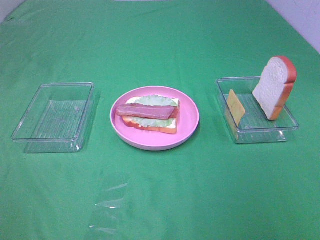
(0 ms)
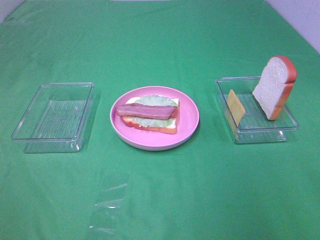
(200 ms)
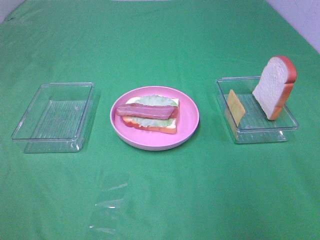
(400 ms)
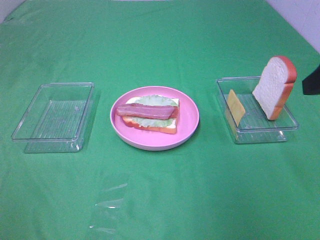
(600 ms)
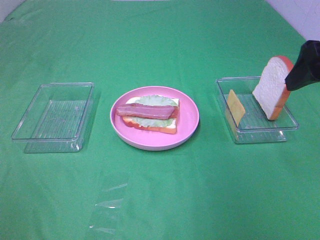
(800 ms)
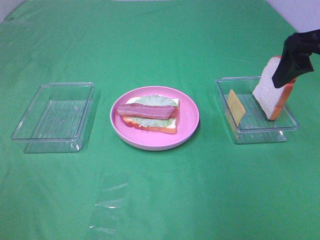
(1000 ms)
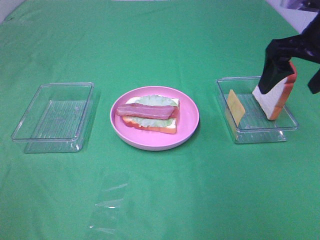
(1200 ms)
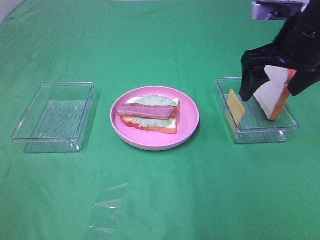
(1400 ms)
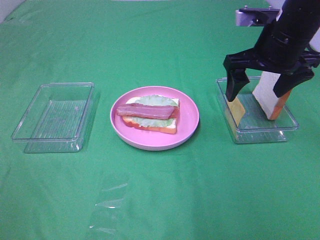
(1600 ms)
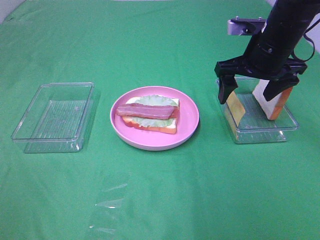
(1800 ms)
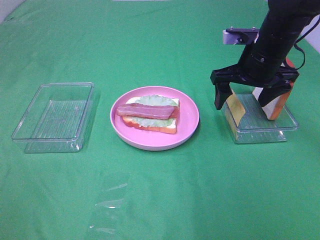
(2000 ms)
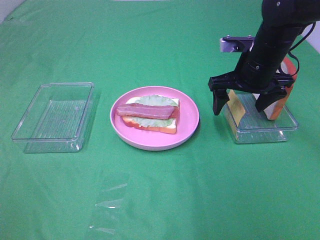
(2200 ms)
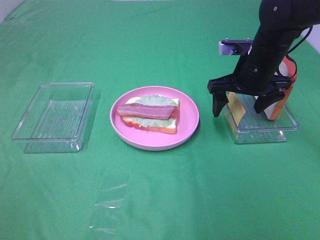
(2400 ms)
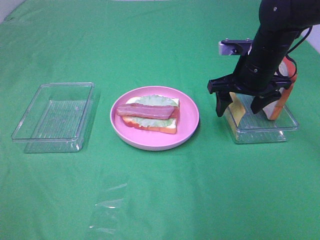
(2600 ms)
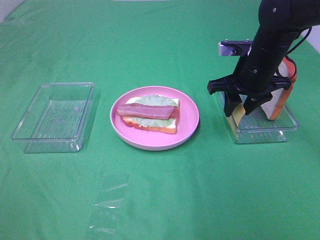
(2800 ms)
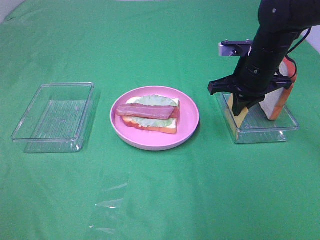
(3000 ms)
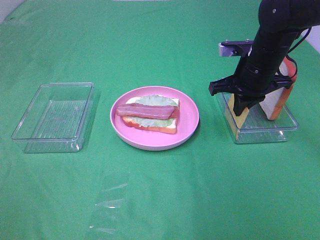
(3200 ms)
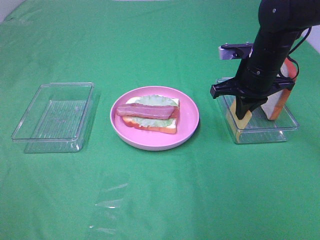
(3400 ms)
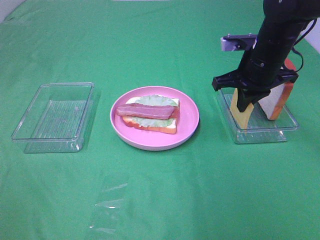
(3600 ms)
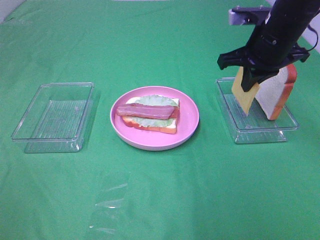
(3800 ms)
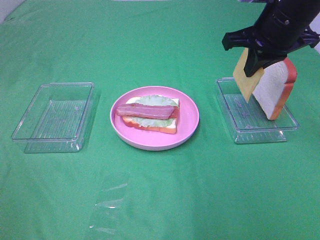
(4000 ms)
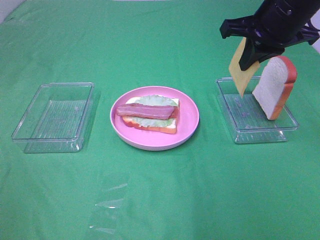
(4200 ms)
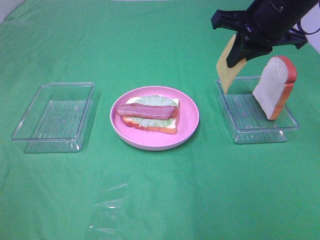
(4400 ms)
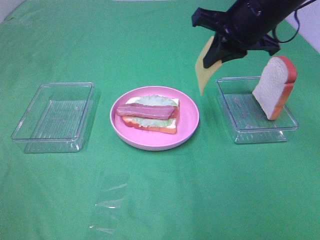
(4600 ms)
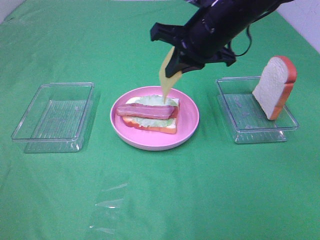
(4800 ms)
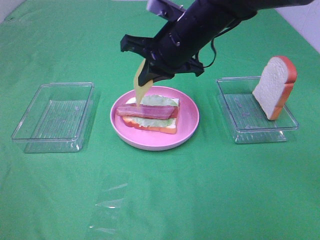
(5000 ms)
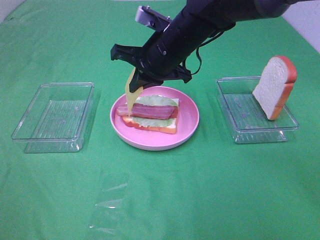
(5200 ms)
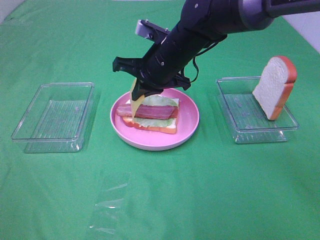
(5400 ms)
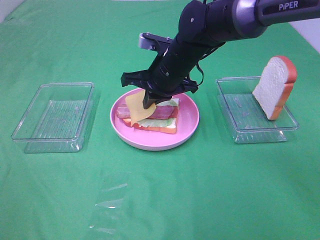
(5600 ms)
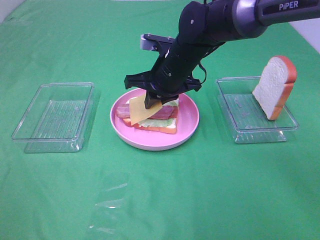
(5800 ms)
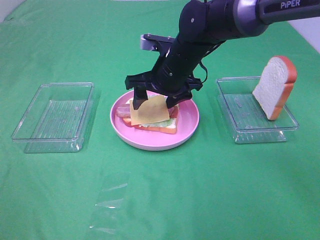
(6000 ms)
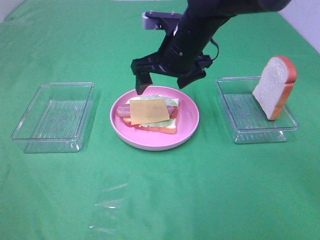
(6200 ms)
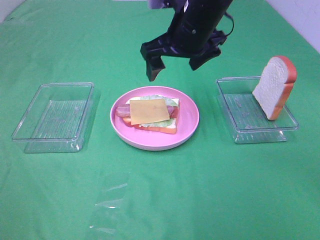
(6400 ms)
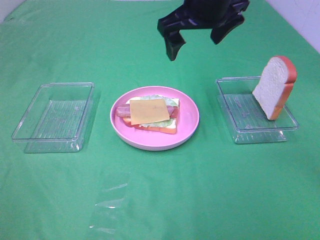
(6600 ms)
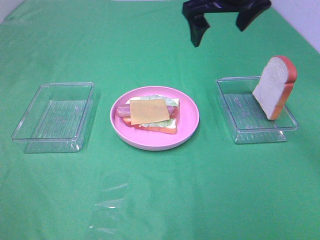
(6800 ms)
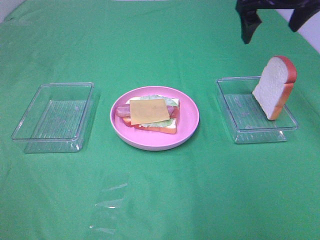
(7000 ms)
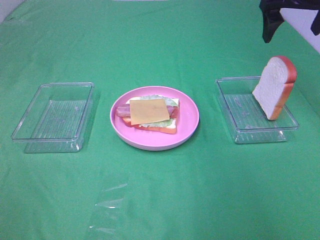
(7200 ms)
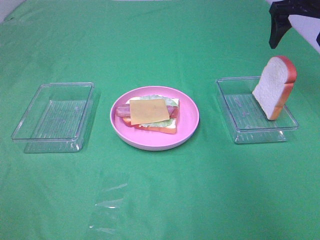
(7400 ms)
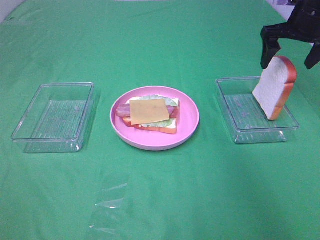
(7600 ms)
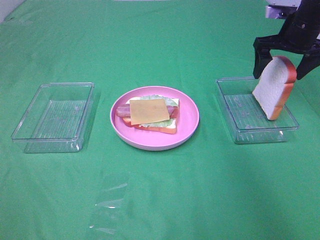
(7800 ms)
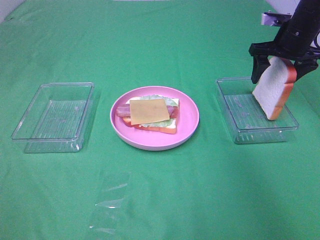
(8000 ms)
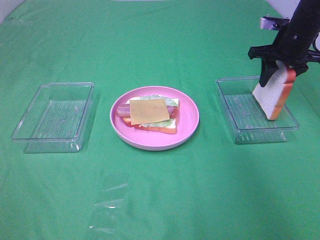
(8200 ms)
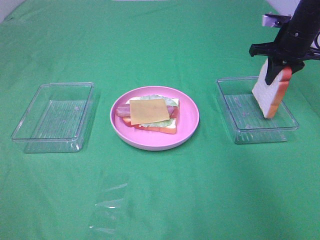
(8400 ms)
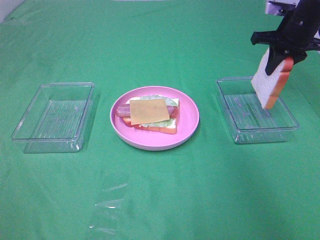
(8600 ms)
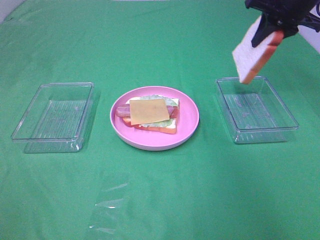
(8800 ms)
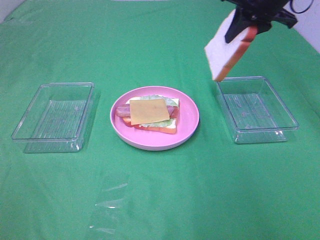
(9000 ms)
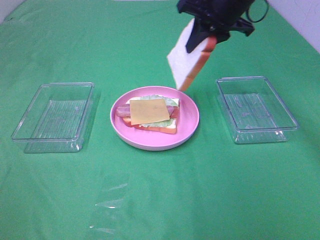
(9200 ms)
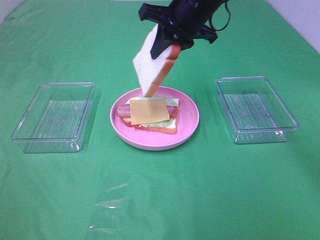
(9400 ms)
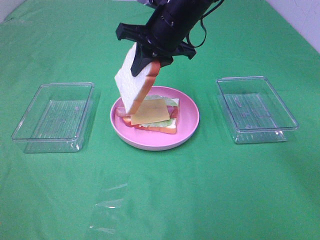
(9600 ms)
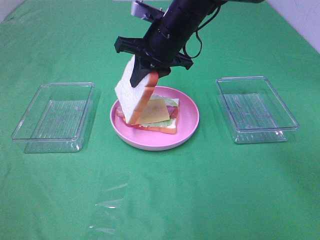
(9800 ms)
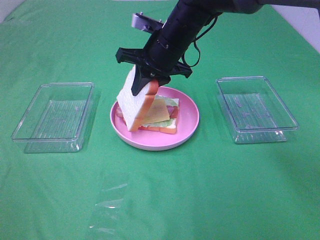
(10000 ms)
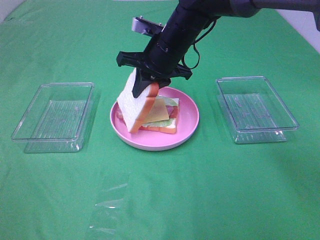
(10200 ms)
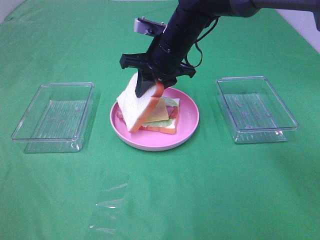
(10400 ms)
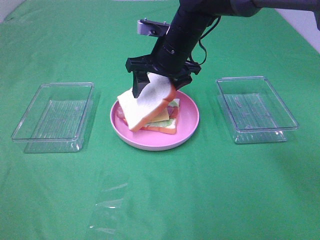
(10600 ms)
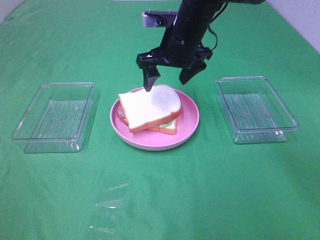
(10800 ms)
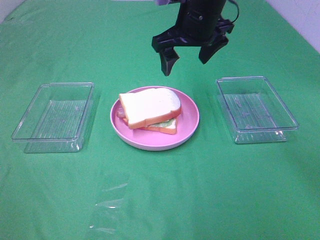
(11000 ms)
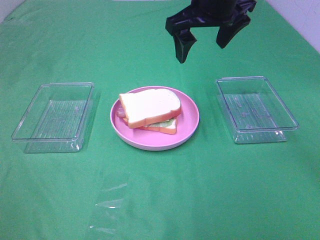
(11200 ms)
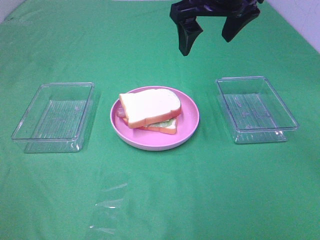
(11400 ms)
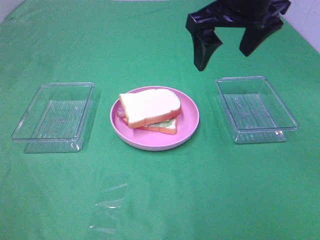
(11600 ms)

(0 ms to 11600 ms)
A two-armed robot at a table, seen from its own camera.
Task of the whole recording: Make sandwiches.
Step, 0 ms - 3000 ms: Right hand:grab the cheese slice.
Step, 3200 ms - 6000 ms: Right hand:place the cheese slice on top of the bacon.
Step, 6200 ms - 8200 ms: Right hand:grab the bread slice.
Step, 8400 ms - 10800 ms: Right hand:place the bread slice on the cheese slice.
0 ms - 1400 ms: The right gripper shifts some 30 cm forward.
1400 ms - 2800 ms: The right gripper shifts roughly 10 cm downward and forward, and closes its fingers.
2800 ms - 4400 ms: The right gripper travels upward by roughly 10 cm, and closes its fingers.
4400 ms - 5800 ms: The right gripper moves to the left and downward, roughly 20 cm.
5800 ms - 7200 ms: The right gripper travels to the right and upward by some 25 cm, and opens up.
7200 ms - 8800 ms: The right gripper travels downward and back again, about 10 cm each way, and closes.
8800 ms - 10200 ms: The right gripper moves to the left and downward, approximately 25 cm.
10200 ms - 11600 ms: The right gripper shifts about 20 cm upward, backward and to the right, and opens its fingers.

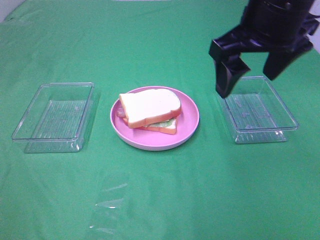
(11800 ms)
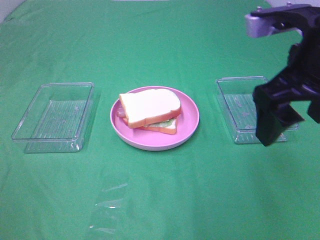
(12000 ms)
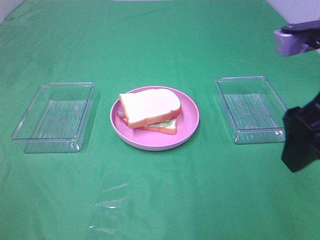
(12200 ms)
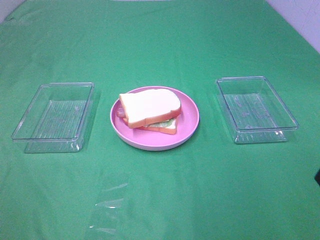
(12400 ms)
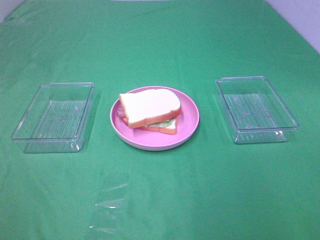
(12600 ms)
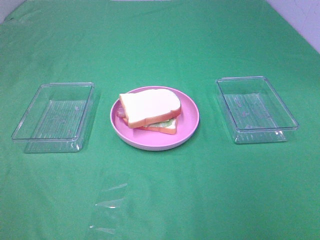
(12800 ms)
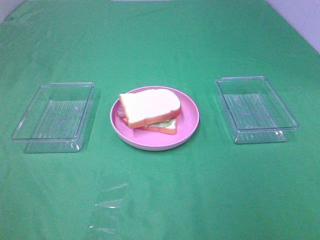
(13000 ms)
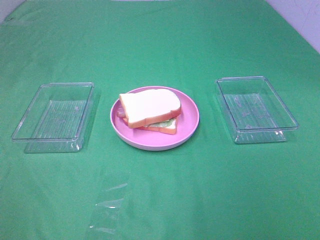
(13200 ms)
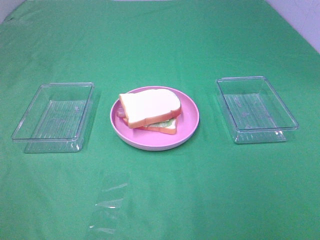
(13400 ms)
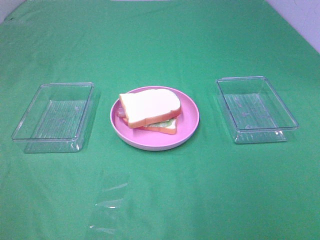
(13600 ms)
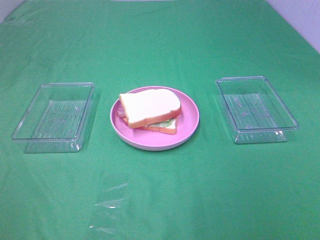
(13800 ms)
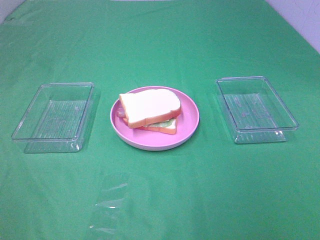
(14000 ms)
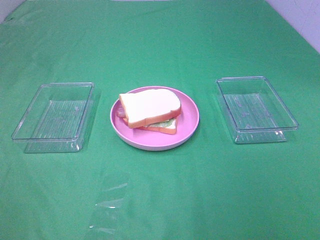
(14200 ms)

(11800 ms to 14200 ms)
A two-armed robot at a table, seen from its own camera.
Task of the whole recording: Make sandwiches.
11800 ms - 13000 ms: The right gripper is displaced backward and to the right by some 30 cm.

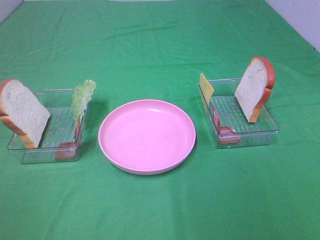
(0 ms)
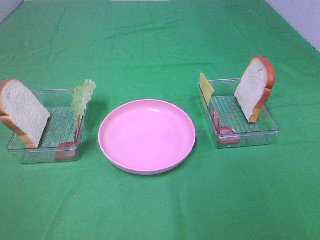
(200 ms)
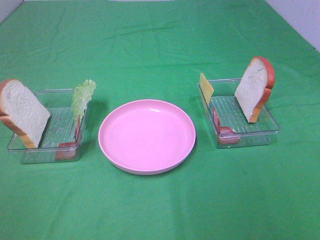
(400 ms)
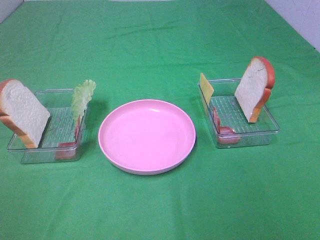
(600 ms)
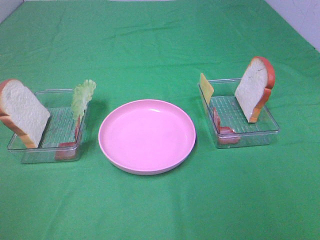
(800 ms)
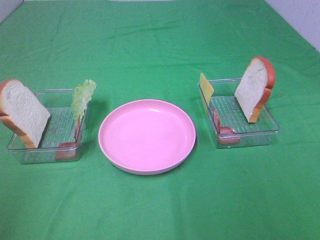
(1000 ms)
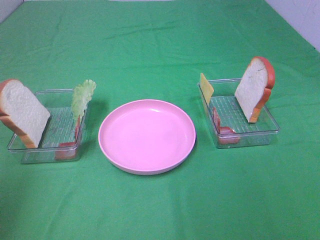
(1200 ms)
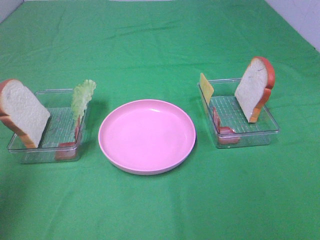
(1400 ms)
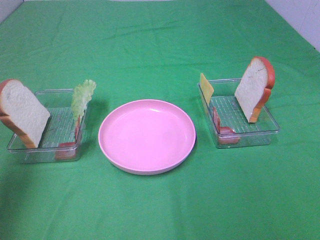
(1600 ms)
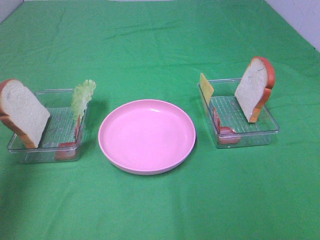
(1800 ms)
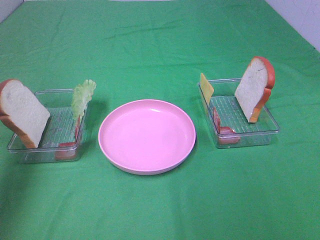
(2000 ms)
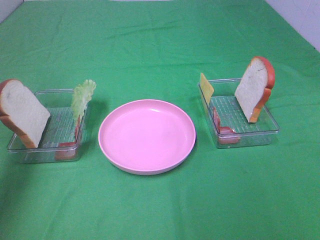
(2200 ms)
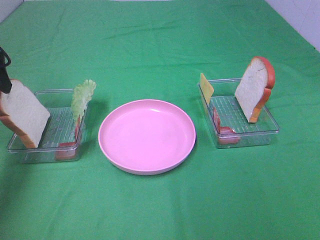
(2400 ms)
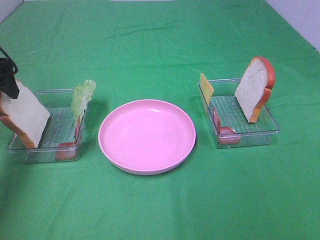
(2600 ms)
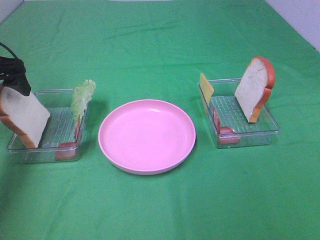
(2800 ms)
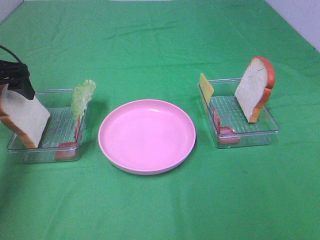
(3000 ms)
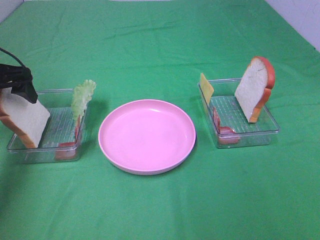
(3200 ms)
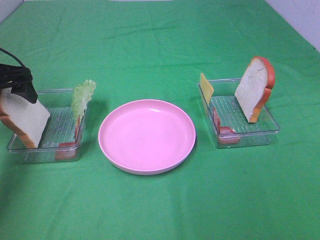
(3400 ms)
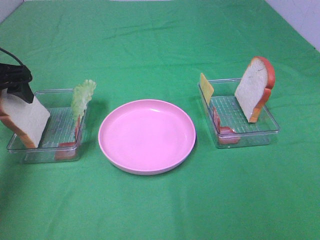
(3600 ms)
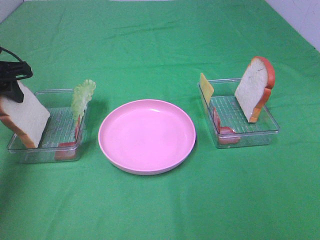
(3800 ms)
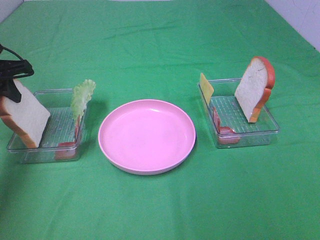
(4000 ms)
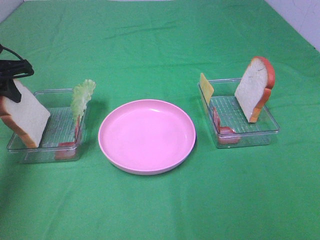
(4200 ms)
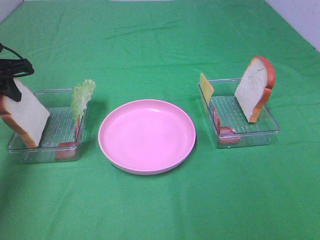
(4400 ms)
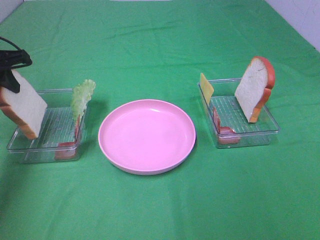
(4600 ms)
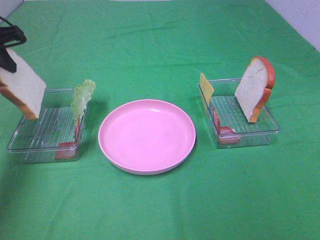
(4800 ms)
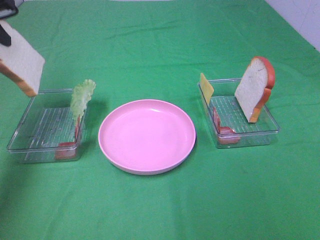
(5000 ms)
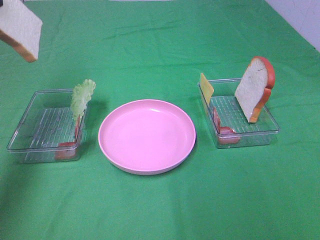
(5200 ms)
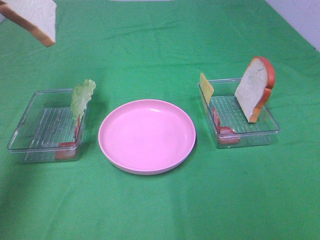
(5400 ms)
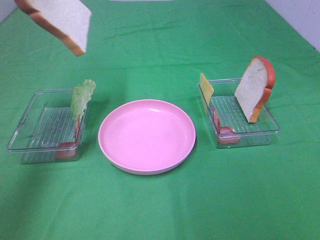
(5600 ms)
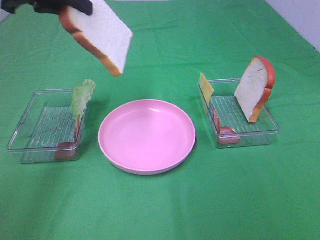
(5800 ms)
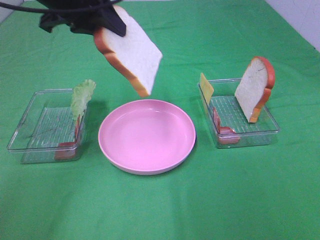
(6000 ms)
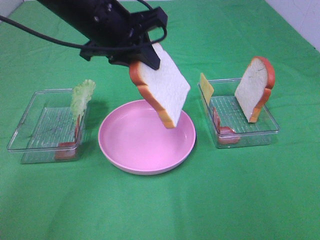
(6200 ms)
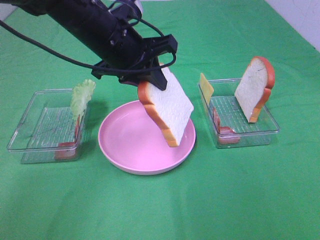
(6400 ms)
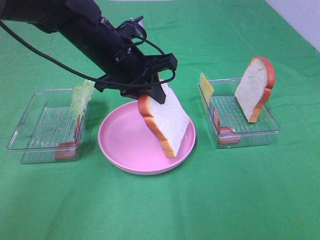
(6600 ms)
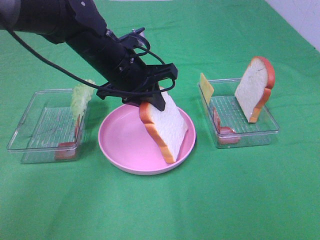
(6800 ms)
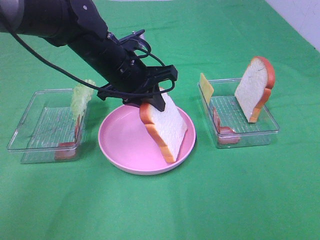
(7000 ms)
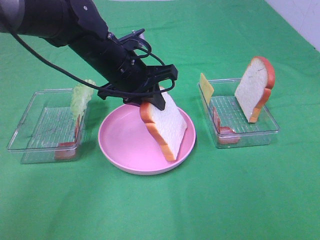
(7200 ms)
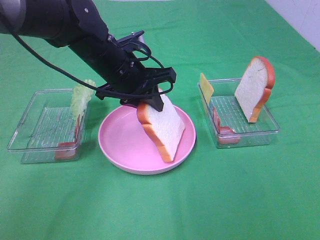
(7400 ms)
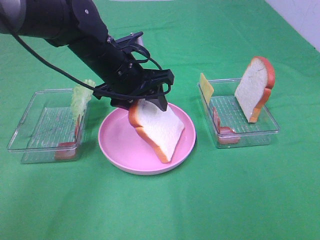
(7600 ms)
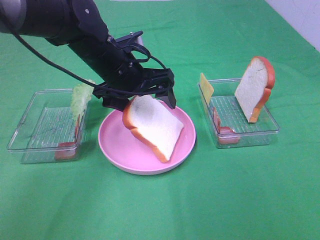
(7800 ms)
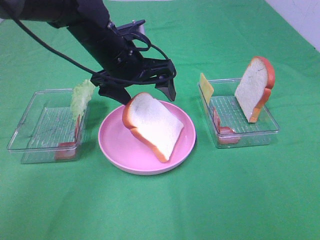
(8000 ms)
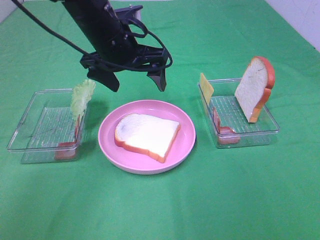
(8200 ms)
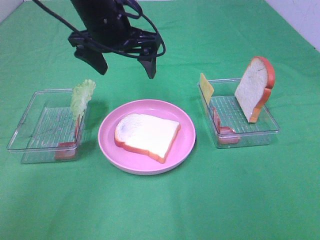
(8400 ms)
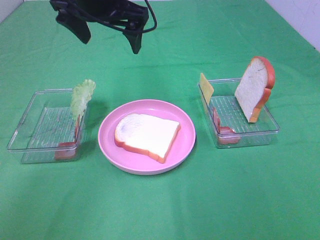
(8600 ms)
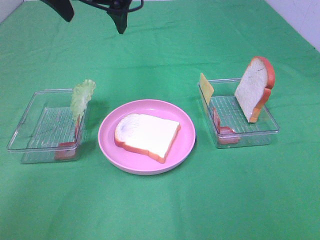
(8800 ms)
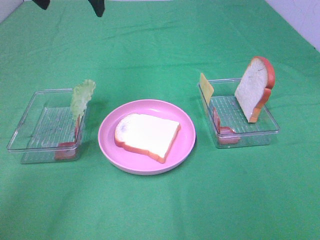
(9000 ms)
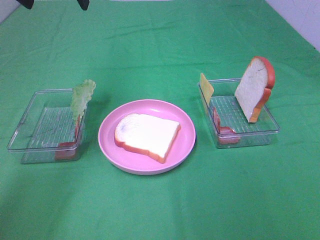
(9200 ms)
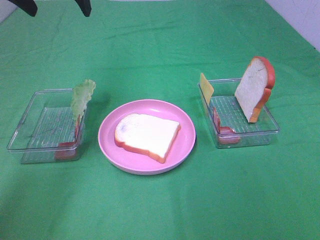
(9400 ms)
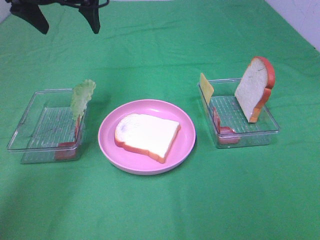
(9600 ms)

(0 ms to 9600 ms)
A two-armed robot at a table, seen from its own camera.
Task of the whole recording: Make sandwiches.
Step, 0 ms - 4200 ms: Left hand:grab the bread slice.
Step, 4400 ms - 8000 ms: Left hand:place the bread slice on the plate.
0 ms - 1600 ms: The left gripper moves forward and upward, about 20 cm.
1600 ms - 3200 ms: The left gripper is displaced downward and forward by some 25 cm.
3200 ms - 4800 ms: The left gripper is displaced upward by some 5 cm, and closes up.
4800 ms - 6400 ms: The left gripper moves to the right, approximately 25 cm.
6400 ms - 8000 ms: The left gripper opens up.
8000 ms - 9600 ms: The left gripper goes about 15 cm upward, to the left and forward.
